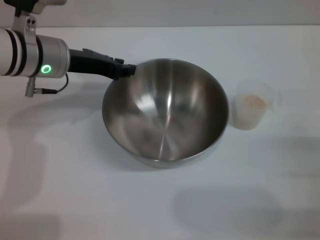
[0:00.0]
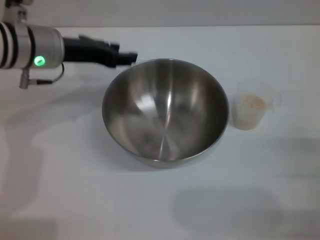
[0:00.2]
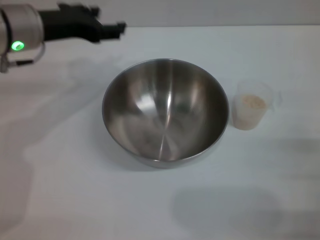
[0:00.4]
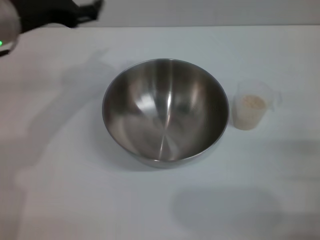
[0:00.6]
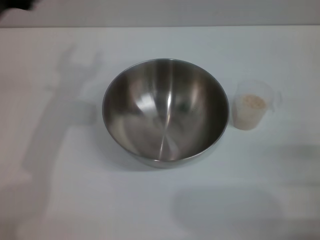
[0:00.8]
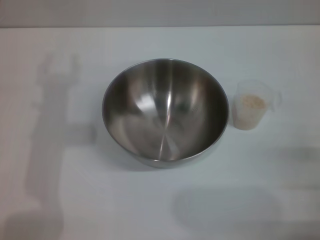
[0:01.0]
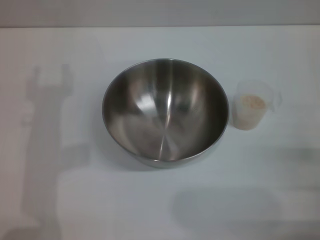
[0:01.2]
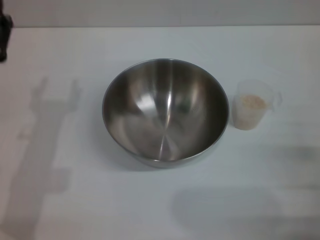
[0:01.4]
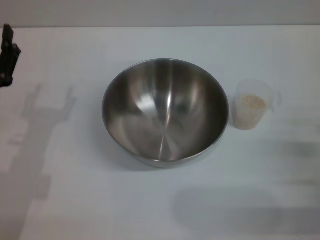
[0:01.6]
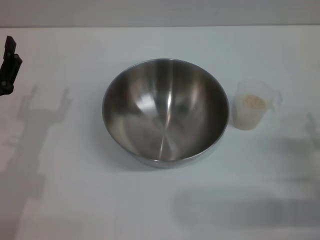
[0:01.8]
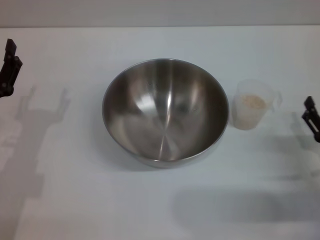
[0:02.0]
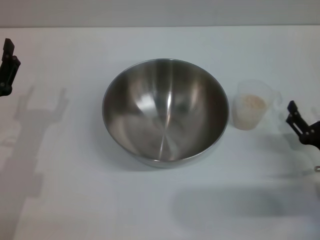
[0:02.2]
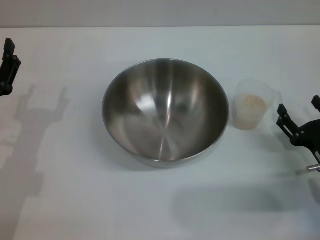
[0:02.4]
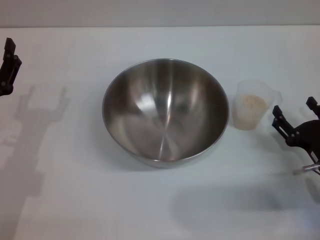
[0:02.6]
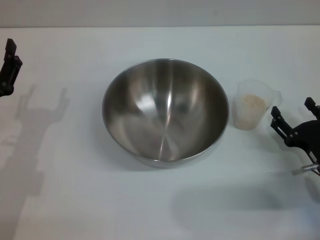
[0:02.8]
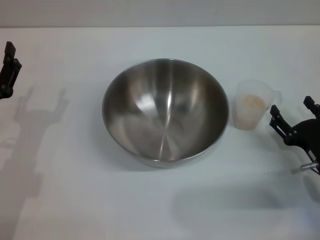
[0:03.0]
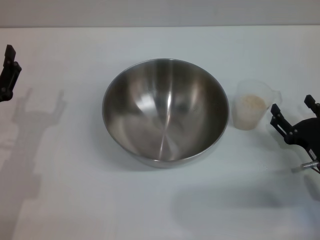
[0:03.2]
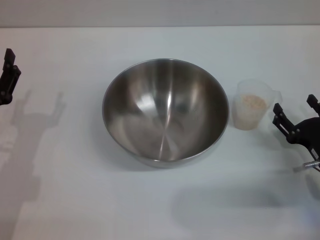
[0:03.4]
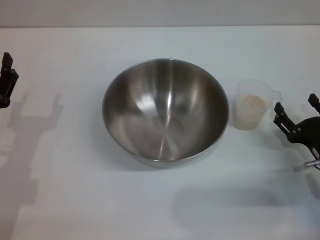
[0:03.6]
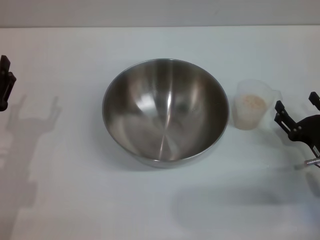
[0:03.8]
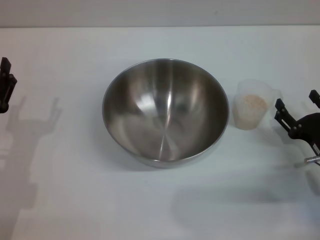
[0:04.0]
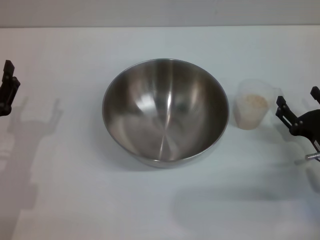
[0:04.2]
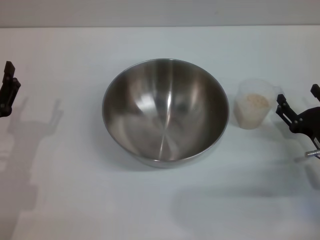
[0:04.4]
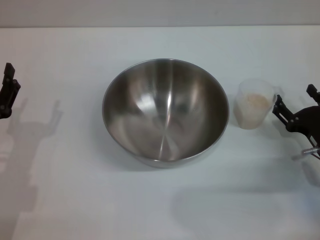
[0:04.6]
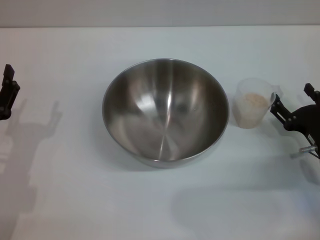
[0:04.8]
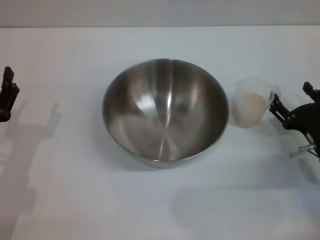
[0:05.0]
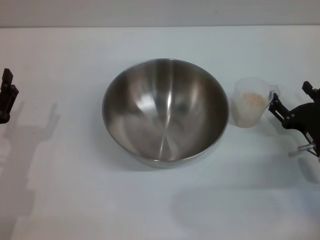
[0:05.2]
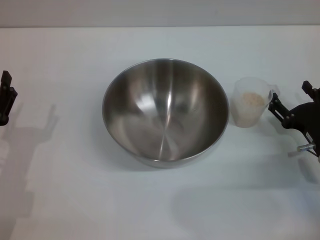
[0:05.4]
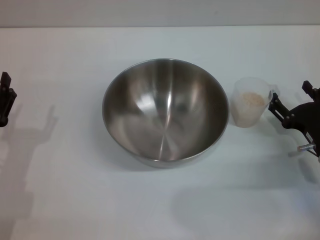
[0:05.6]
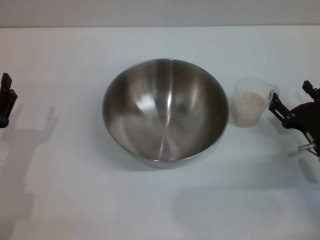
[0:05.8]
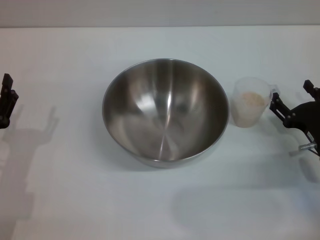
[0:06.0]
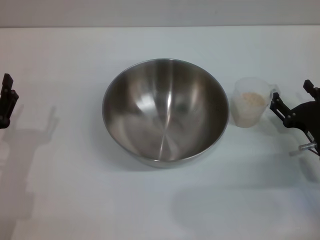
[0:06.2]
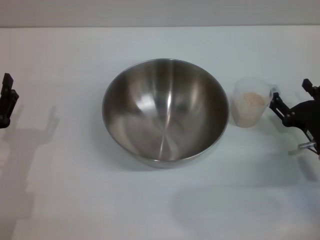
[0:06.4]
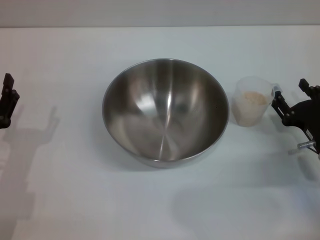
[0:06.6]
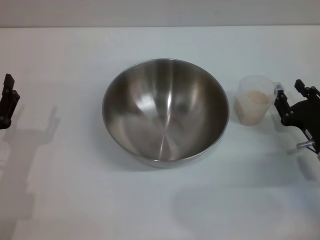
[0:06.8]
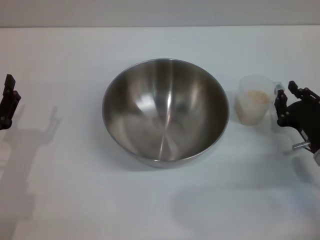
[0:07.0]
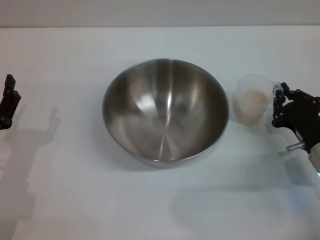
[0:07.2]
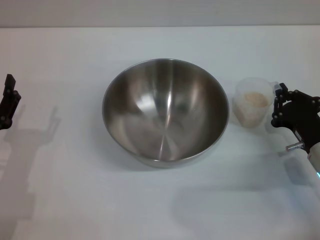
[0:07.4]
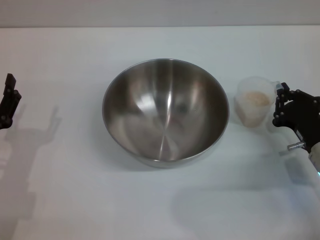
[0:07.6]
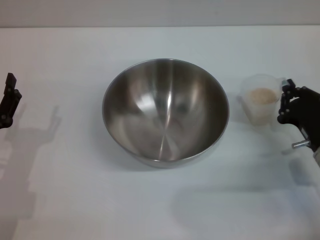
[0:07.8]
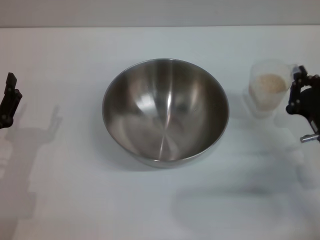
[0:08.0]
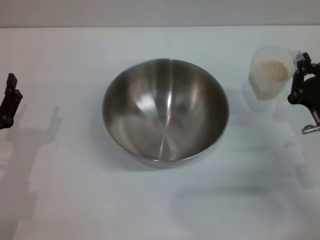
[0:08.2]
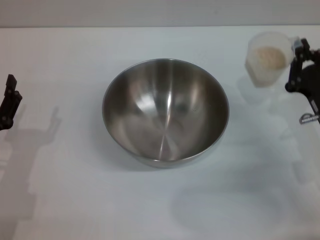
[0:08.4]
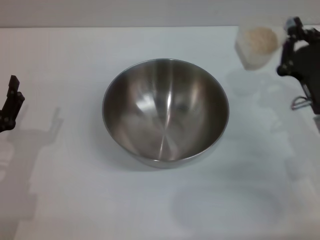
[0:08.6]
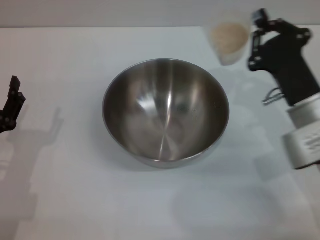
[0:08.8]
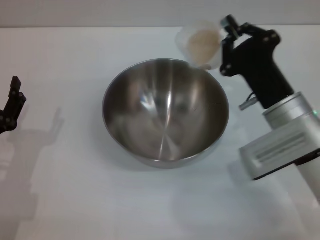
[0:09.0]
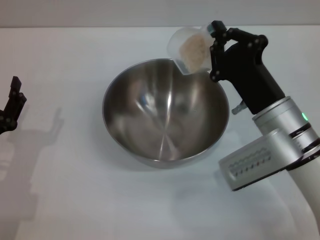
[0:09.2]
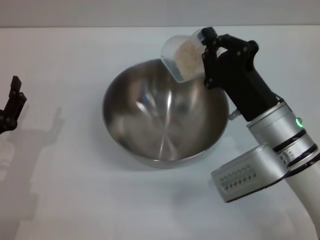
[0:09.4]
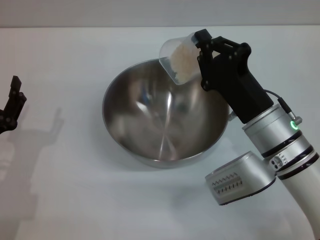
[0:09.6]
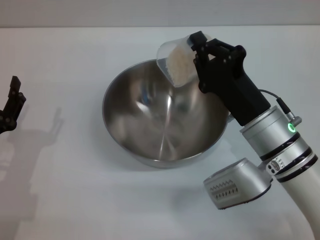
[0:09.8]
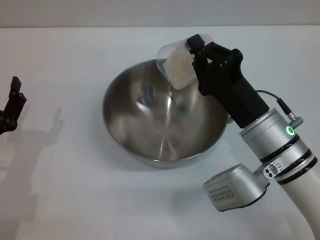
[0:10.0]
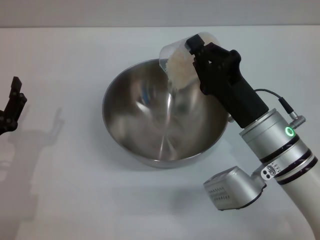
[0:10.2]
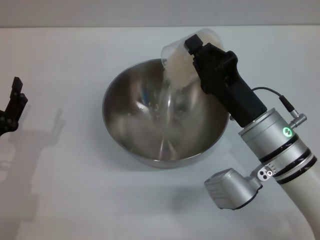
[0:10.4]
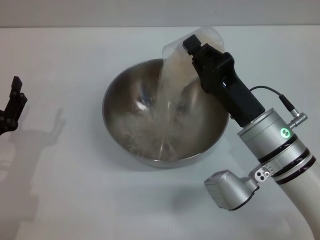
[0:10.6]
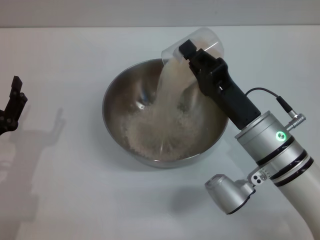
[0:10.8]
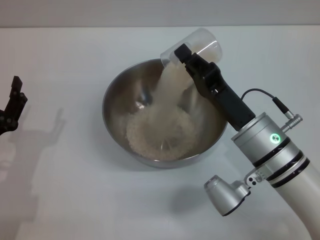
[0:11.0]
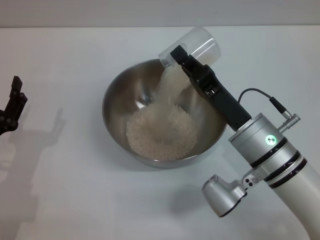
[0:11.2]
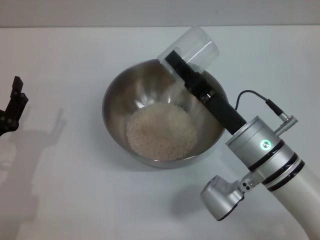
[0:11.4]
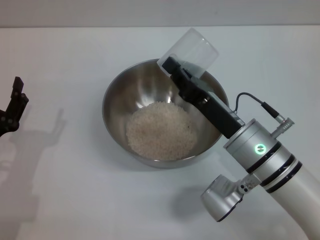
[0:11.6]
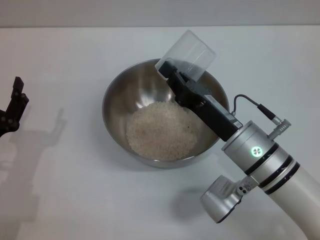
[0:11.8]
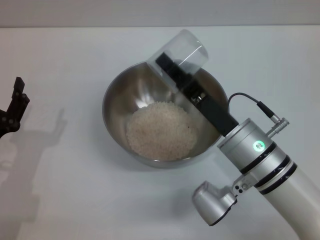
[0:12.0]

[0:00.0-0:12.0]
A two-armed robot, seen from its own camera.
Task of the whole recording: Place the bowl in the middle of the table with one hand and pour the rice from the grain cup into it with the other hand.
Step, 0:00.6 to 0:08.2: Pick up the cup with rice in it with the right gripper.
Step, 0:08.4 to 0:12.0: Pour the rice from the cup into the bowl with the right gripper.
0:00.0 to 0:01.6: The left gripper travels backward, downward and to the left by roughly 20 cm, and opens its fingers.
0:01.6 to 0:03.0: The right gripper ends up approximately 5 cm from where it was.
0:03.0 to 0:06.0: The grippers move only a little.
0:06.0 to 0:07.6: The right gripper closes up.
0:07.6 to 0:09.0: The right gripper shifts some 10 cm to the left and upward.

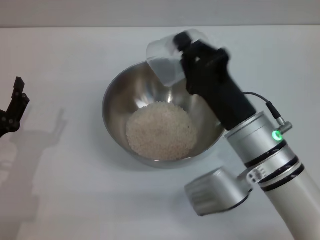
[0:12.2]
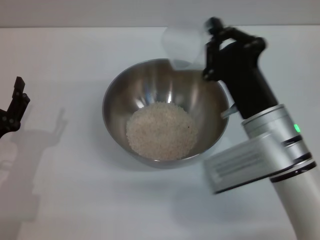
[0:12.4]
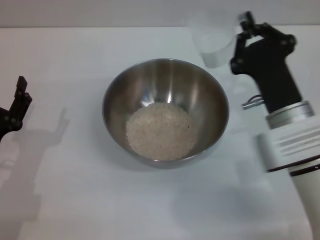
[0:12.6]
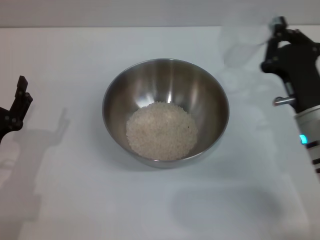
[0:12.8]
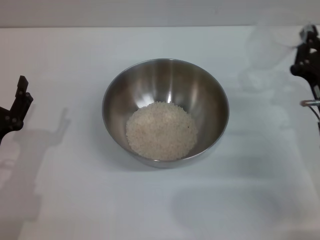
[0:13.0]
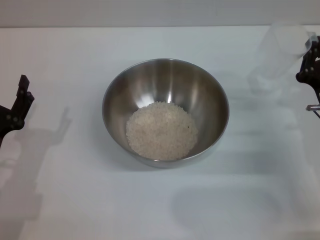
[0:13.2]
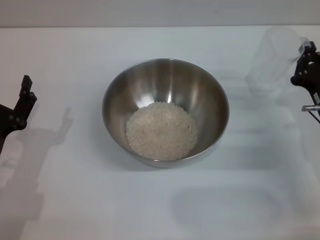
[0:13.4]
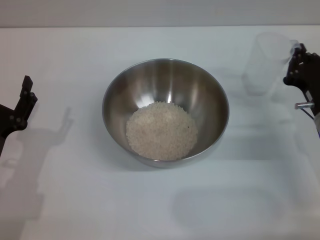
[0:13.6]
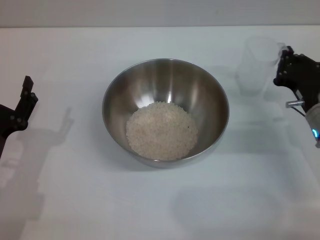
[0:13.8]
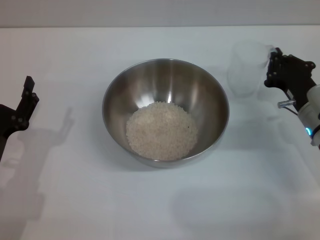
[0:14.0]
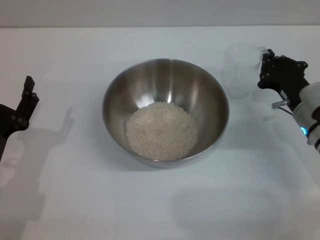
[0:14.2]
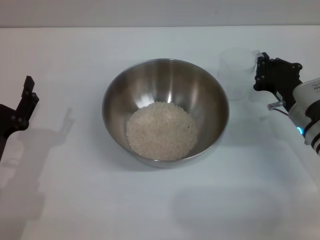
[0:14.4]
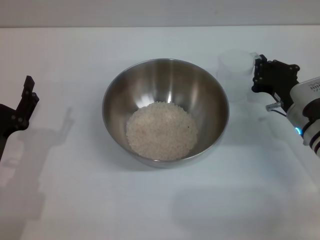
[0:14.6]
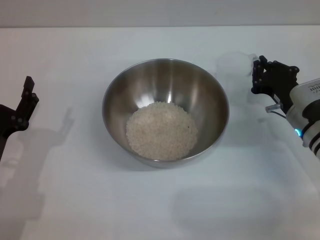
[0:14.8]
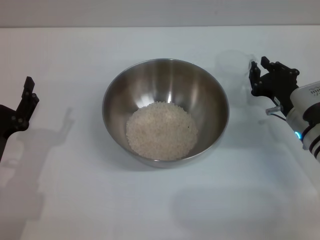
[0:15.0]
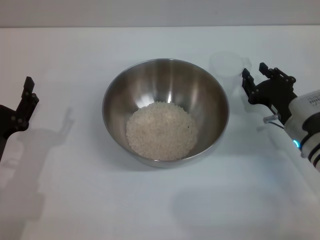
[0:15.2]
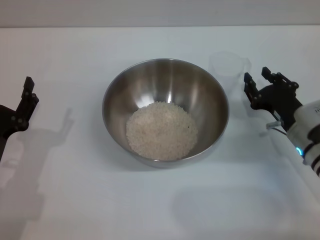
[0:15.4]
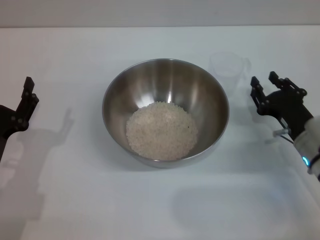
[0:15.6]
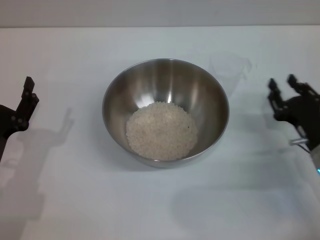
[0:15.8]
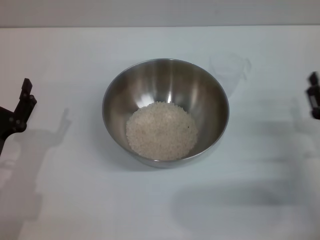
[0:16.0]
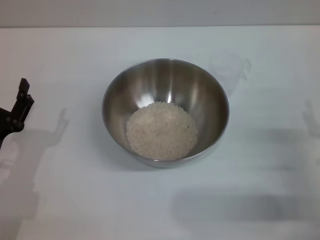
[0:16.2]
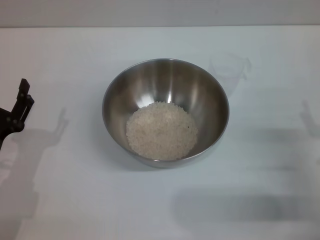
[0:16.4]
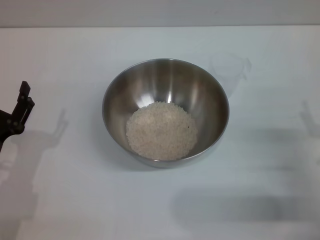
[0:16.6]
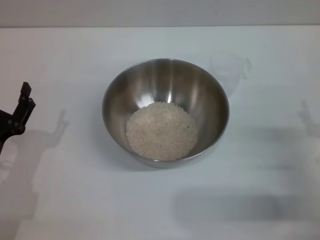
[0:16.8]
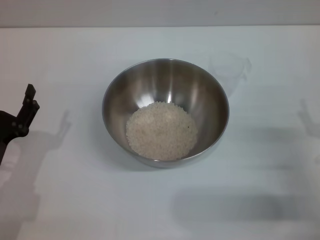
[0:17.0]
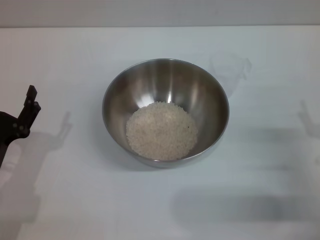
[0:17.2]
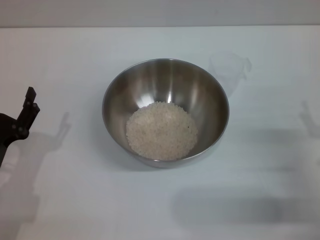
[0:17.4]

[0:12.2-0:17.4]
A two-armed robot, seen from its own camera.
Task of the whole recording: Place the bowl in the middle of the table with one hand and pour the rice from the grain cup into it with the other hand.
Step, 0:12.2 to 0:15.2: Place the cup on the table with the right gripper.
0:12.2 to 0:14.0: The right gripper heads to the right, forward and downward, covering approximately 15 cm.
0:14.0 to 0:15.6: The right gripper opens.
0:15.6 to 0:17.4: The right gripper shifts about 5 cm backward, and opens up.
